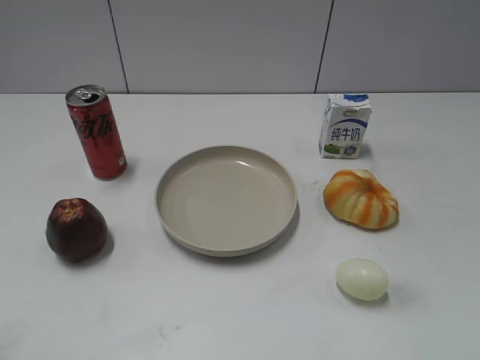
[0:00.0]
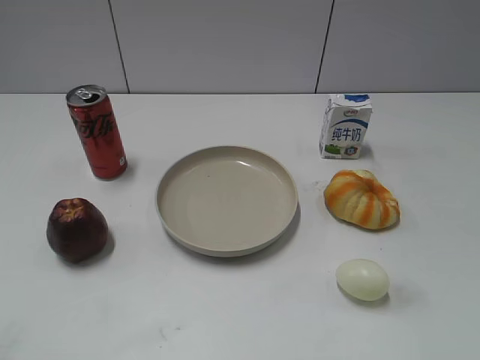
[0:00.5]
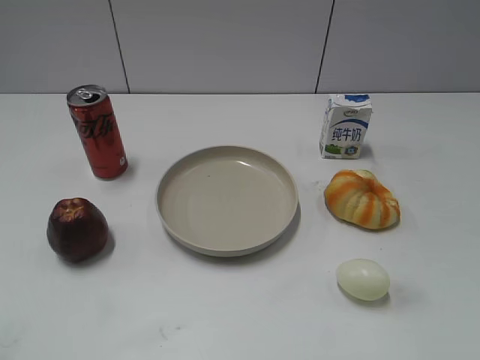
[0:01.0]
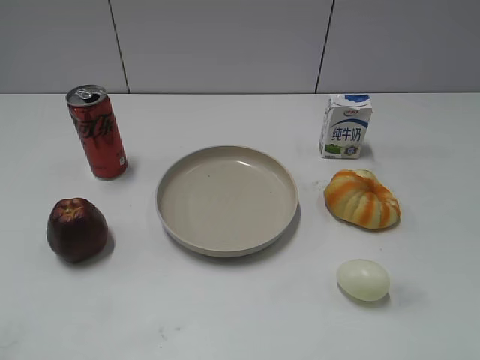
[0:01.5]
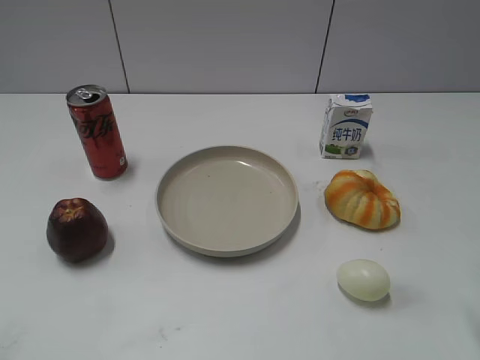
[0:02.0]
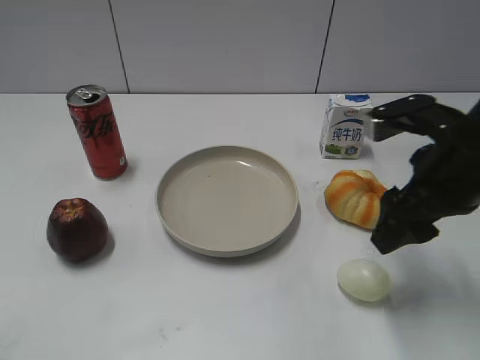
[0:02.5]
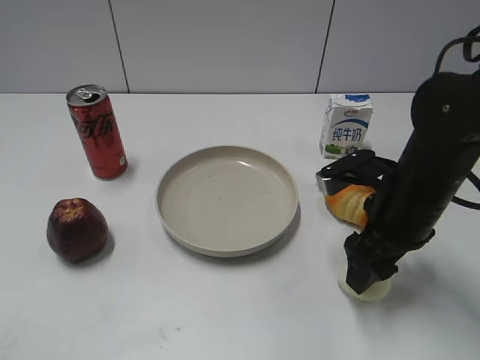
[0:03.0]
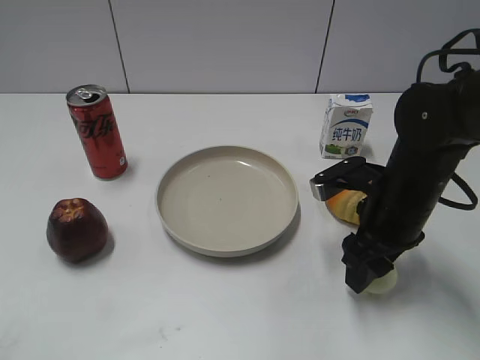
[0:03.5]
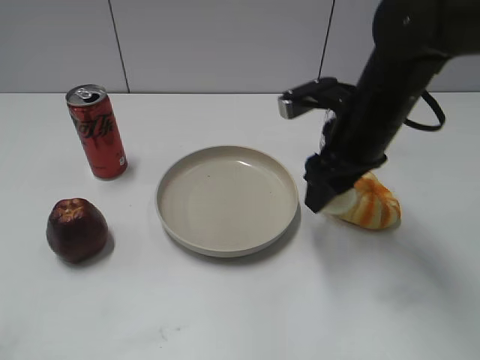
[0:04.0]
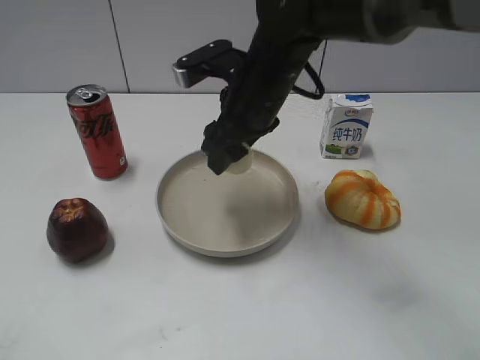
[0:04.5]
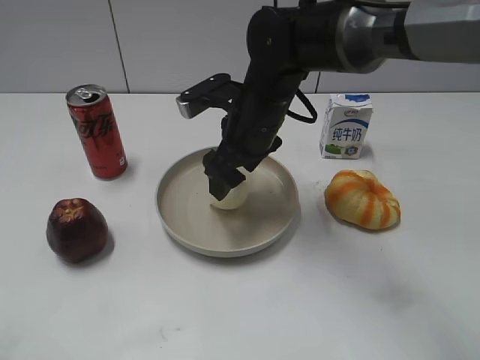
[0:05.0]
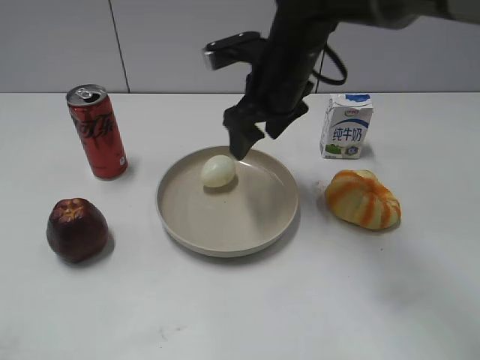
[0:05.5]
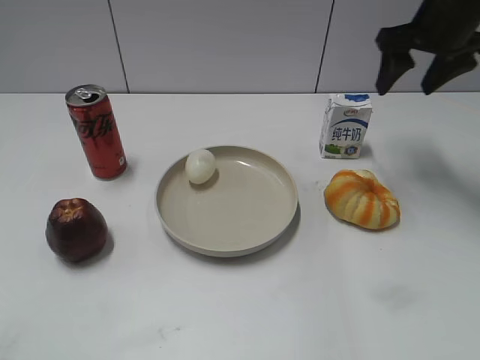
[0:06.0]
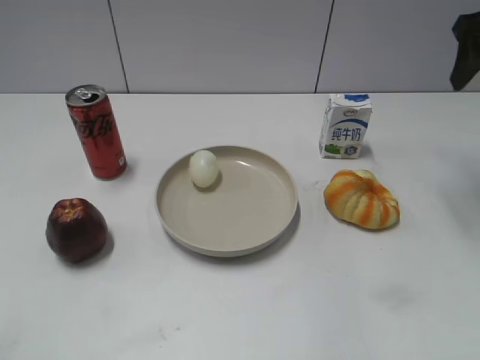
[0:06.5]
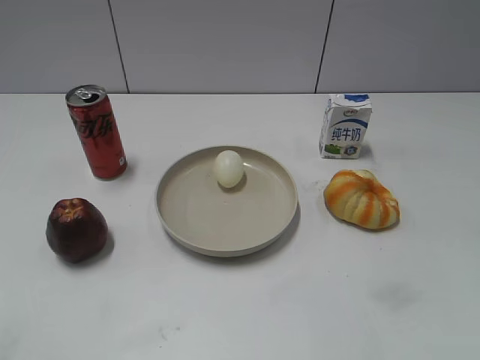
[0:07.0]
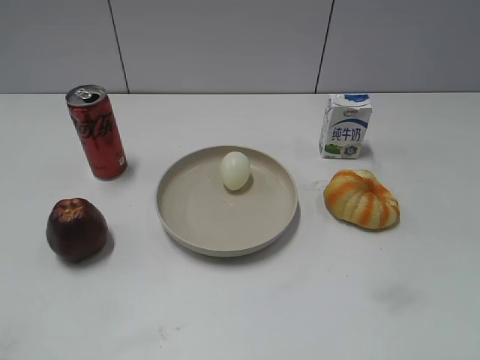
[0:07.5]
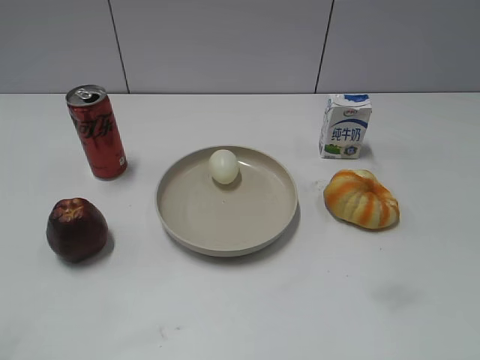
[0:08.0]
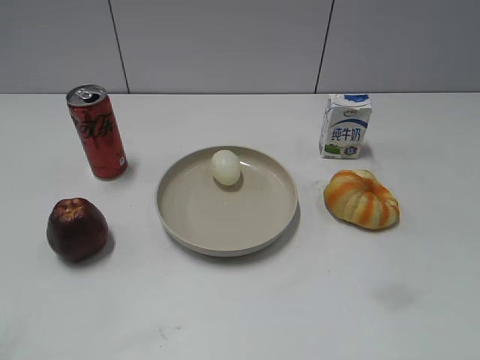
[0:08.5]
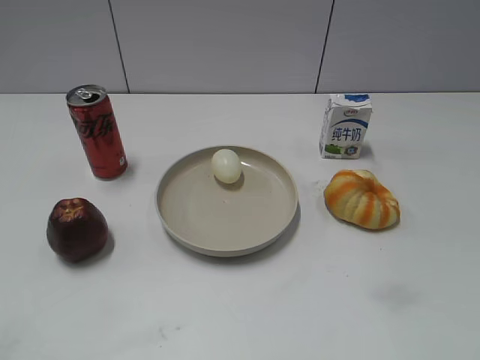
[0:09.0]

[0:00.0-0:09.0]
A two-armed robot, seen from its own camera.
Step, 0:00.0 to 0:03.5: Grasp the egg with right gripper.
Step, 0:04.0 to 0:05.5: Place the egg on the plate with right gripper.
0:02.0 to 0:04.5: The right gripper travels to the left and forward by approximately 30 cm, and closes.
0:04.5 to 0:07.0: The right gripper travels to the right and backward by some 30 cm, and opens up.
